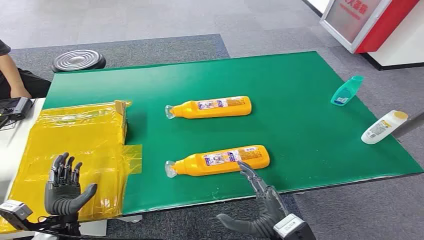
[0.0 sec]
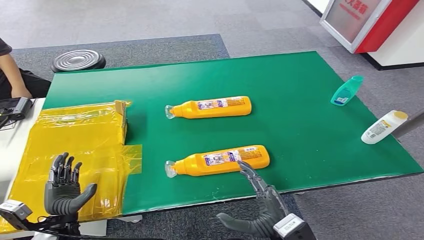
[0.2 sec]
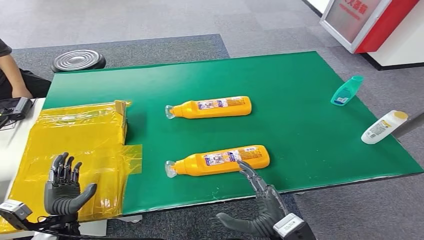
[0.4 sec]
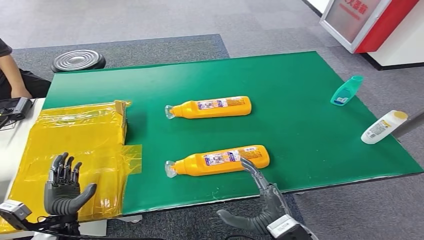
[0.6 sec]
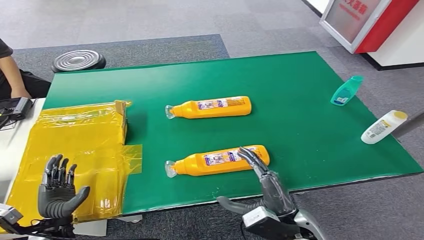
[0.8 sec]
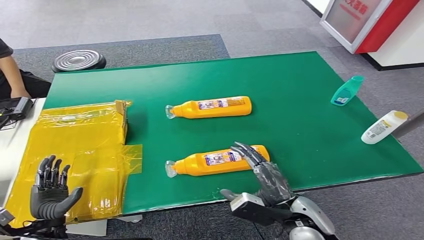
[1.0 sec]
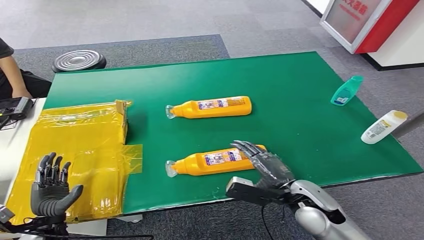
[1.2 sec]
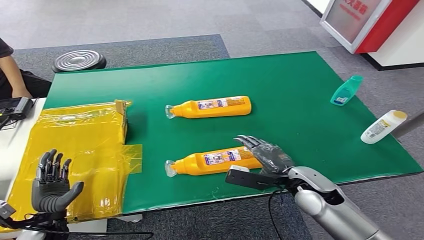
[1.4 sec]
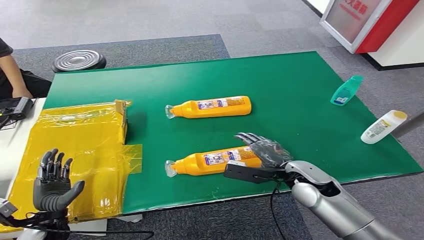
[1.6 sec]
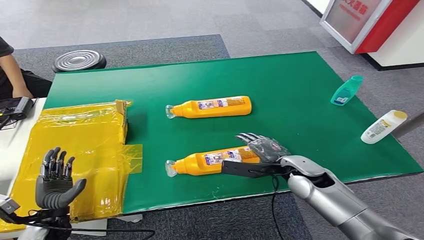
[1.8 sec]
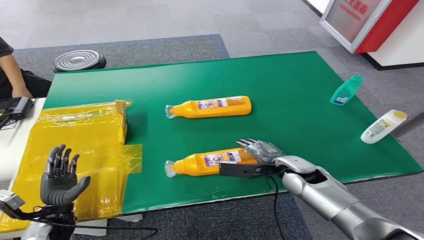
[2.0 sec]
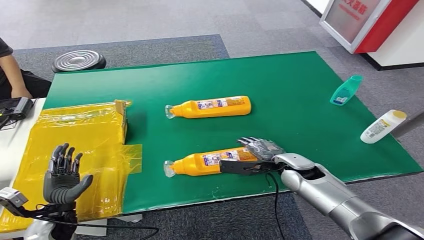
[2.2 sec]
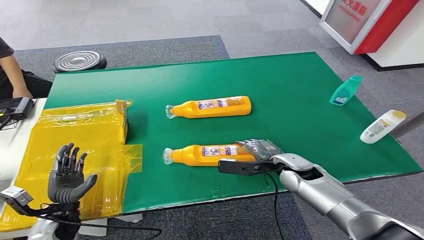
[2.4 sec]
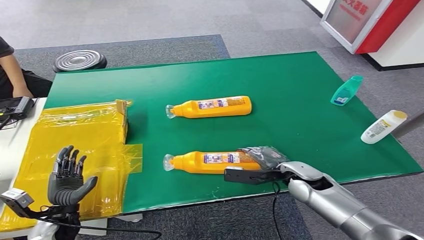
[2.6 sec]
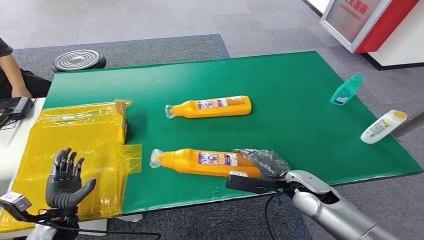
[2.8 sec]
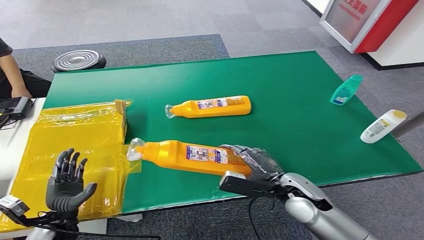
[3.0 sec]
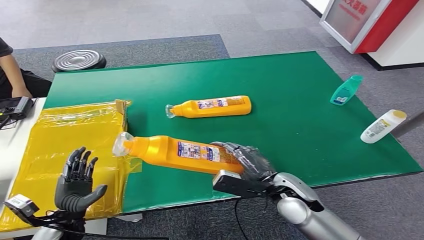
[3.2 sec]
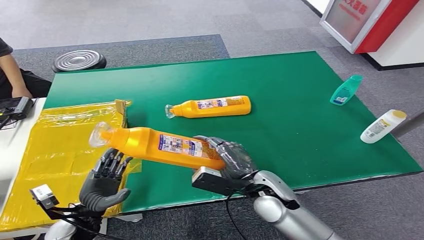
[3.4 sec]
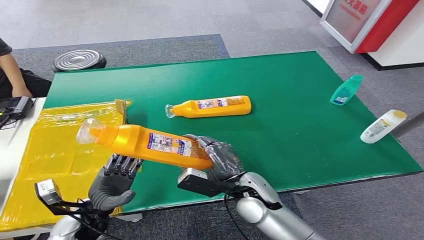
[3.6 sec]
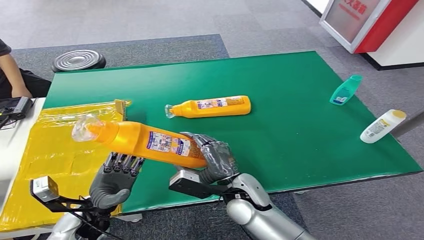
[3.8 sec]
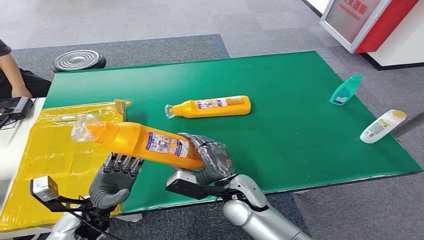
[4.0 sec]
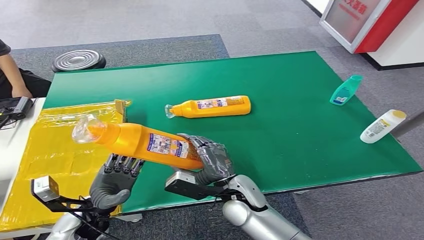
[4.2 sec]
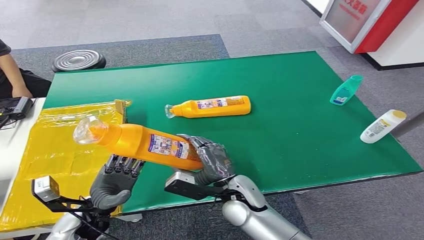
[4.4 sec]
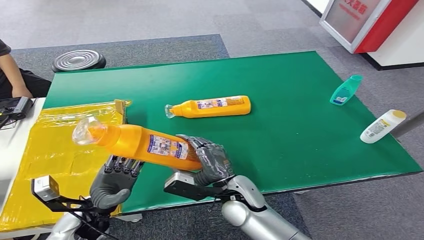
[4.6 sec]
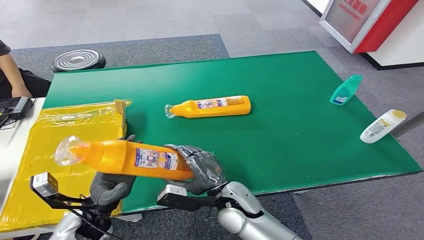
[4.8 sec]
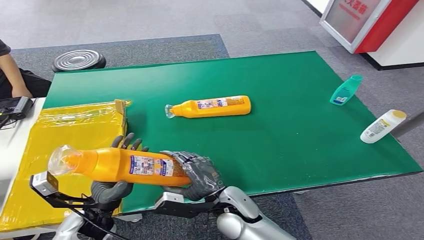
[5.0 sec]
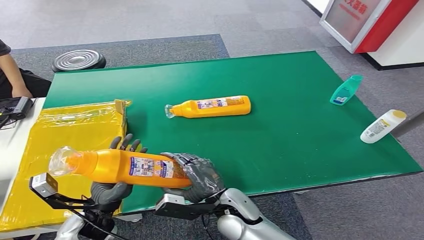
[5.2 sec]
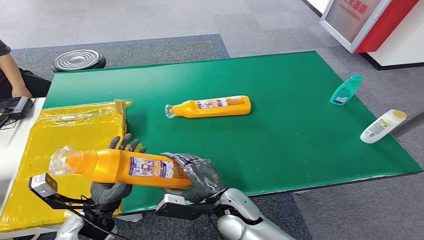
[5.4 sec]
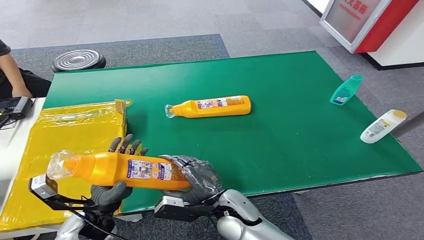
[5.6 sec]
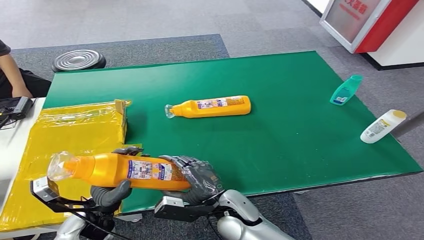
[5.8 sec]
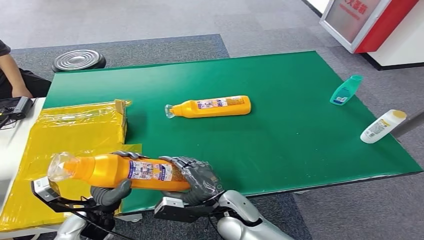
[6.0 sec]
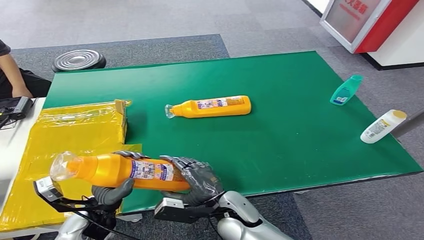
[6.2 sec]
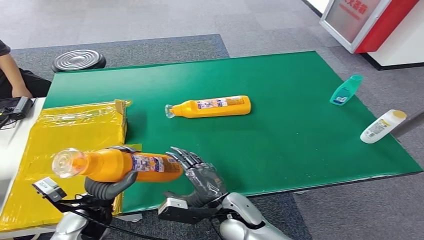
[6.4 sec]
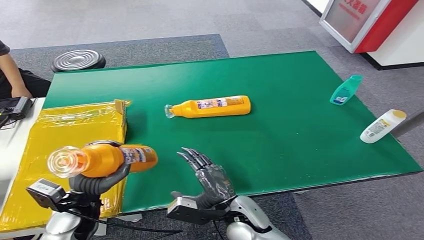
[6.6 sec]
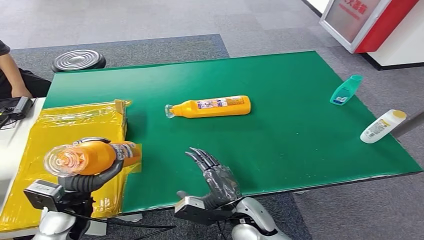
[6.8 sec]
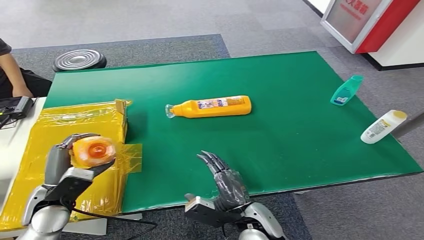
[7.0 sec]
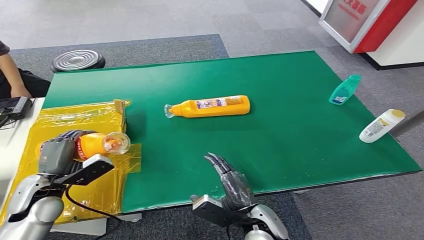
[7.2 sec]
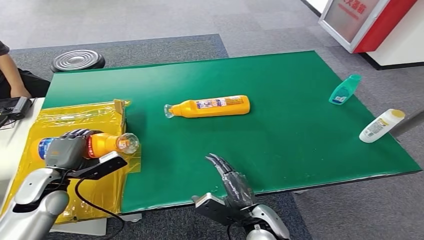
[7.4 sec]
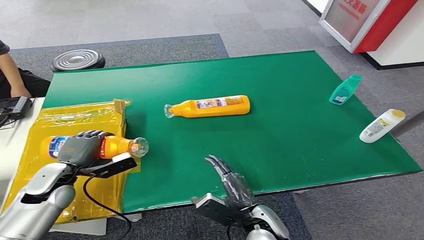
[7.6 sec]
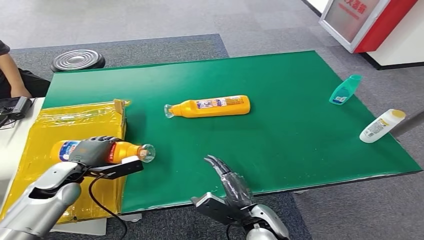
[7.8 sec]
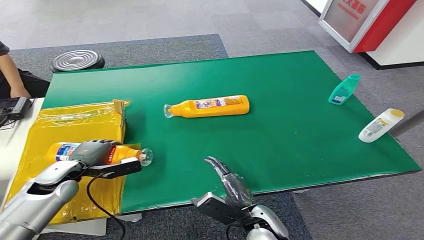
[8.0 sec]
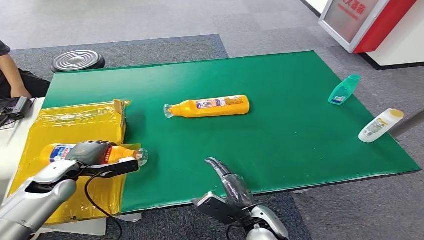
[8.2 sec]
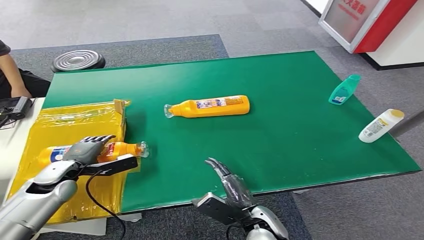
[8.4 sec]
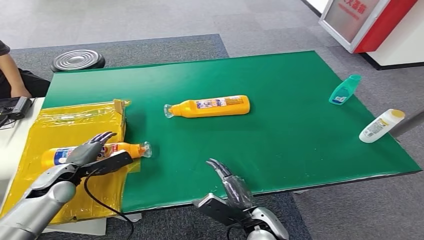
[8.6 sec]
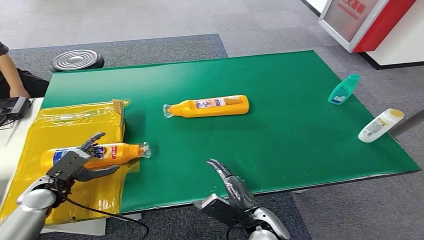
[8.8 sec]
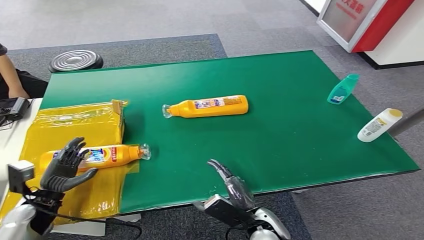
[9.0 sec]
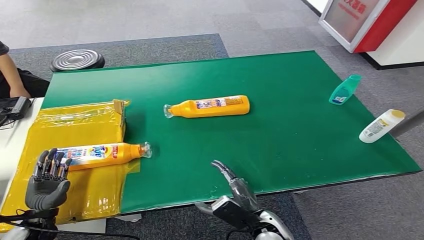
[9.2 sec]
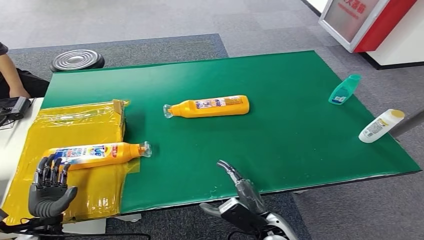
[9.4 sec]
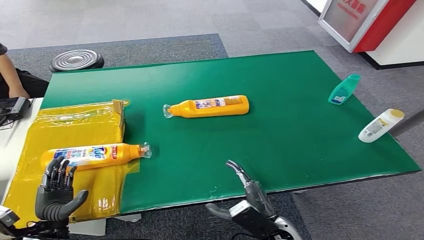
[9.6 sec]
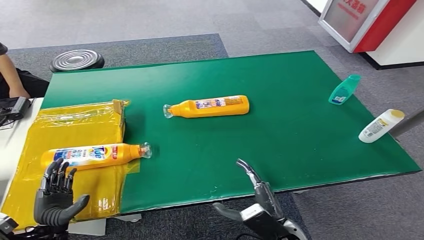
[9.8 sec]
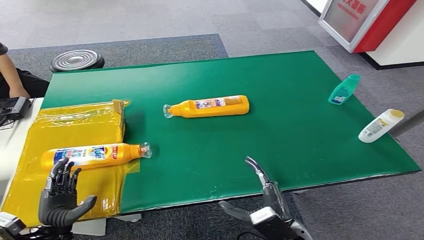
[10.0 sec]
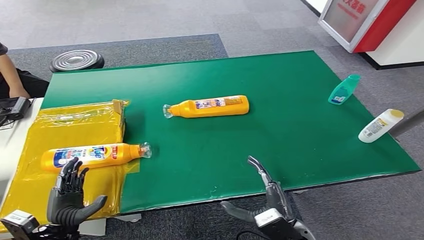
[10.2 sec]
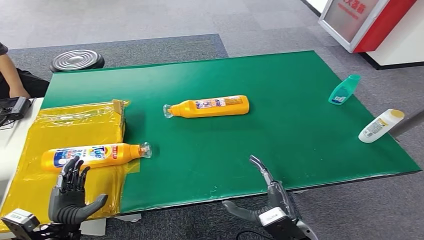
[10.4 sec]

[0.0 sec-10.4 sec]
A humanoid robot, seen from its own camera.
Step, 0.0 sec to 3.2 sec: Pick up the bottle from the table.
Step, 3.4 sec to 10.4 sec: Turn the bottle to the front side.
1.4 sec to 3.0 sec: The right hand travels forward and back again, approximately 5 cm each way.
3.0 sec to 4.4 sec: The left hand is displaced to the right and upward by roughly 10 cm, while the right hand heads to the left, covering approximately 15 cm.
4.4 sec to 6.0 sec: The hands move only a little.
6.0 sec to 7.4 sec: The right hand moves to the right, some 5 cm. The left hand shifts about 15 cm to the left, forward and upward.
7.4 sec to 9.0 sec: The left hand shifts about 10 cm downward.
9.0 sec to 10.4 sec: The left hand is displaced backward and to the right by roughly 10 cm, while the right hand goes roughly 5 cm to the right.
